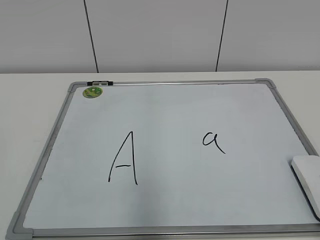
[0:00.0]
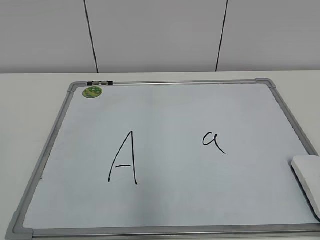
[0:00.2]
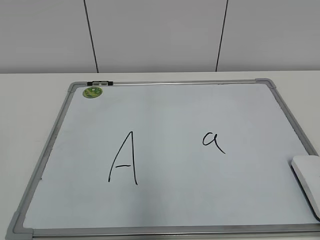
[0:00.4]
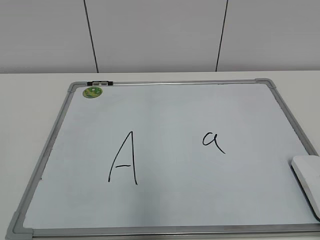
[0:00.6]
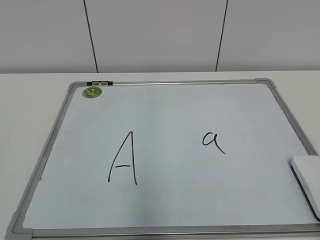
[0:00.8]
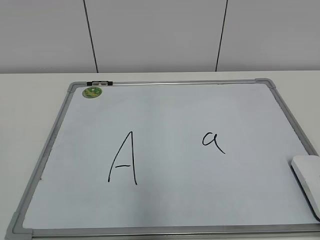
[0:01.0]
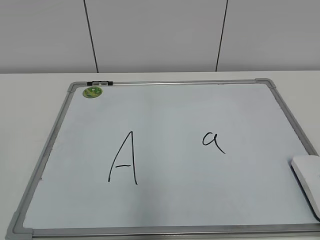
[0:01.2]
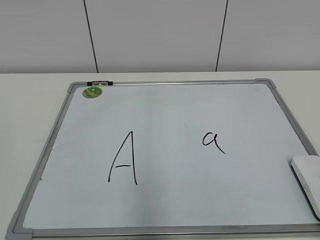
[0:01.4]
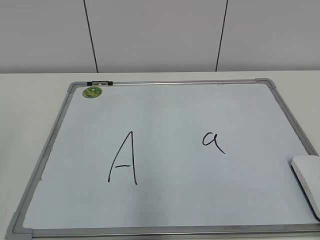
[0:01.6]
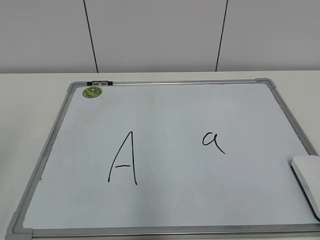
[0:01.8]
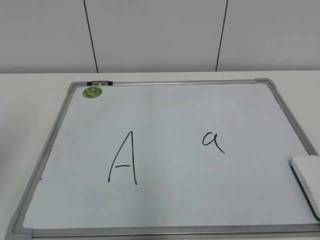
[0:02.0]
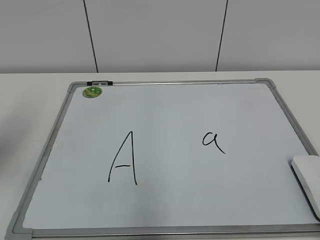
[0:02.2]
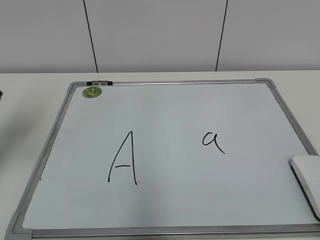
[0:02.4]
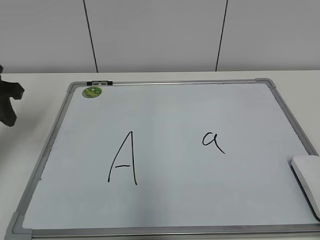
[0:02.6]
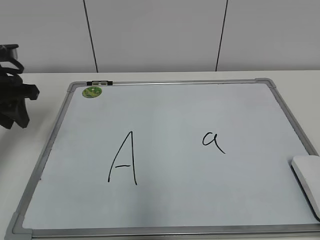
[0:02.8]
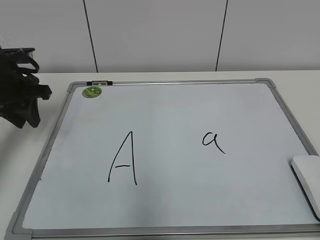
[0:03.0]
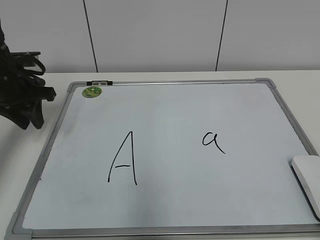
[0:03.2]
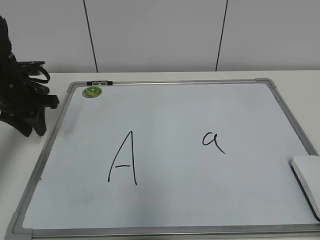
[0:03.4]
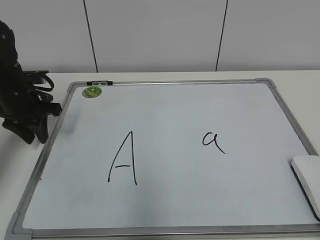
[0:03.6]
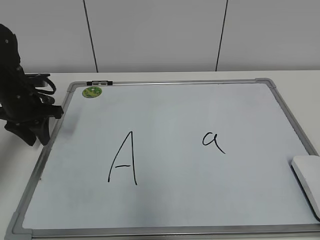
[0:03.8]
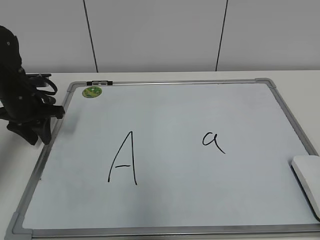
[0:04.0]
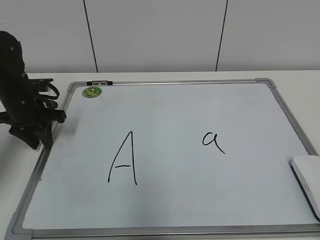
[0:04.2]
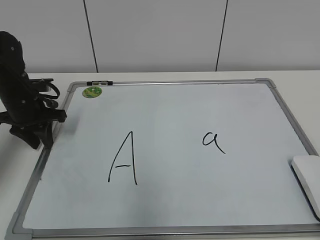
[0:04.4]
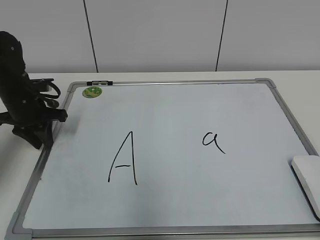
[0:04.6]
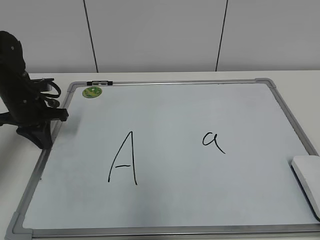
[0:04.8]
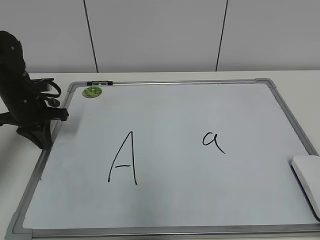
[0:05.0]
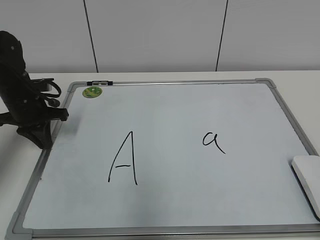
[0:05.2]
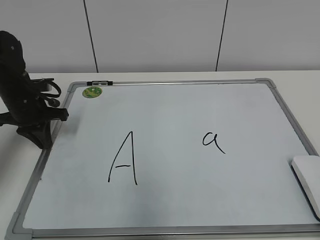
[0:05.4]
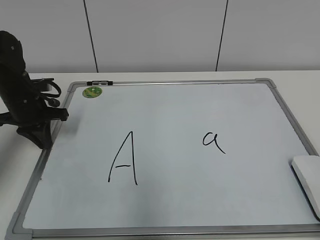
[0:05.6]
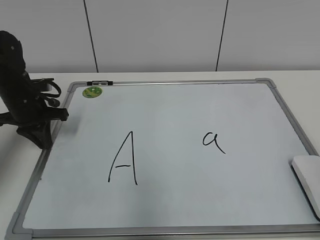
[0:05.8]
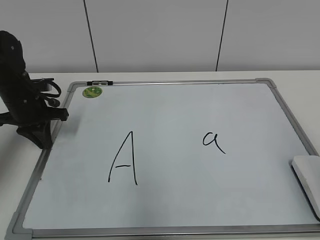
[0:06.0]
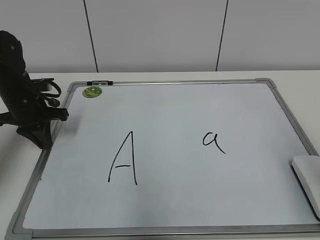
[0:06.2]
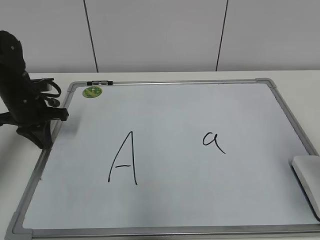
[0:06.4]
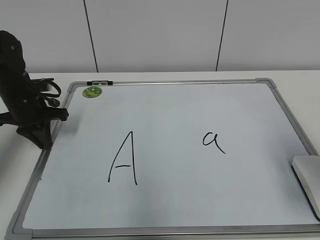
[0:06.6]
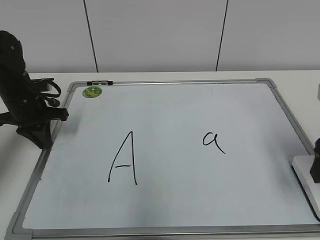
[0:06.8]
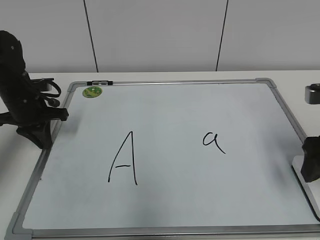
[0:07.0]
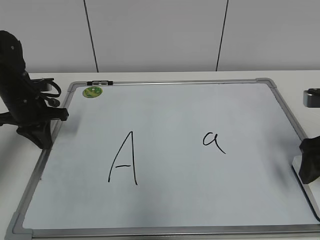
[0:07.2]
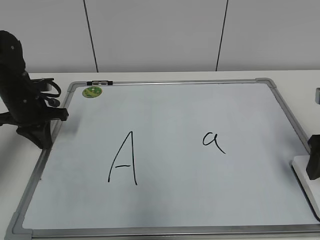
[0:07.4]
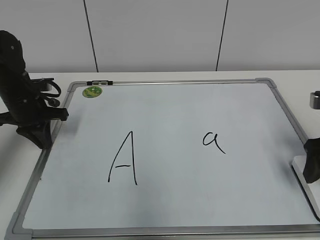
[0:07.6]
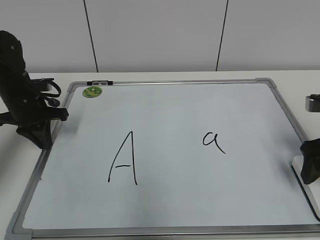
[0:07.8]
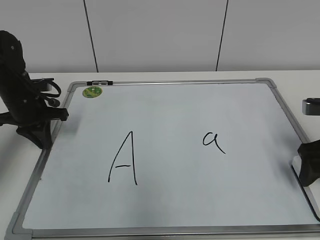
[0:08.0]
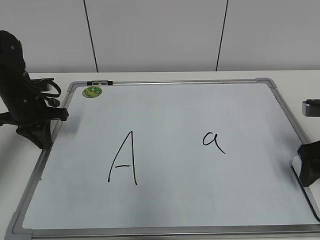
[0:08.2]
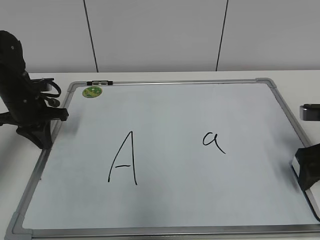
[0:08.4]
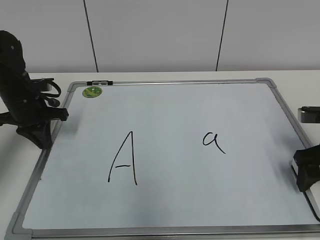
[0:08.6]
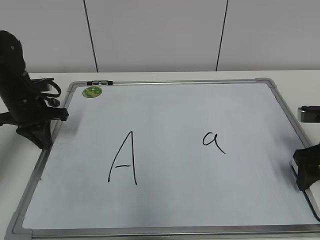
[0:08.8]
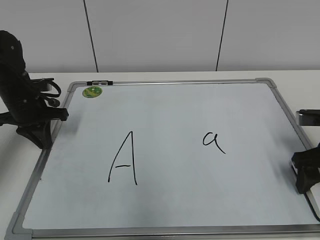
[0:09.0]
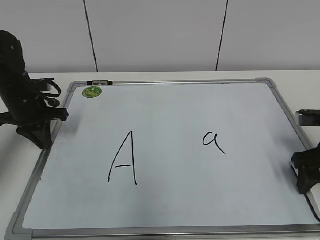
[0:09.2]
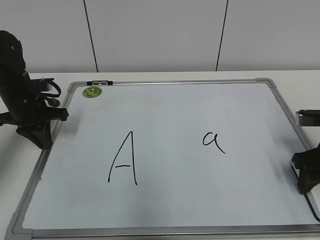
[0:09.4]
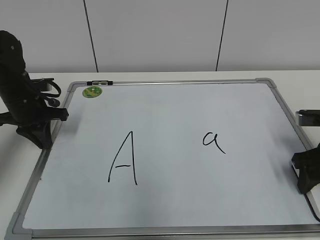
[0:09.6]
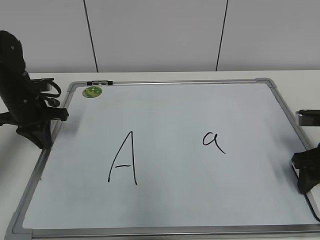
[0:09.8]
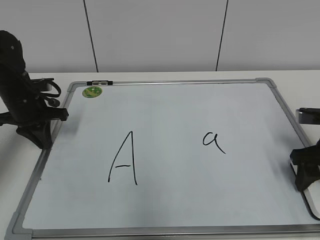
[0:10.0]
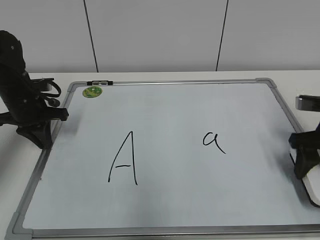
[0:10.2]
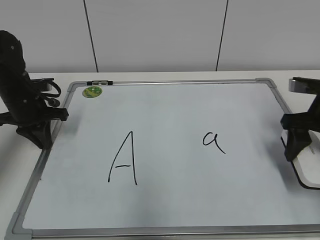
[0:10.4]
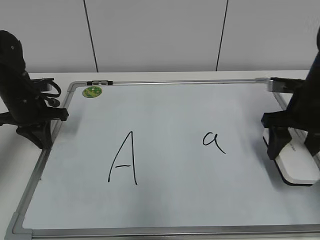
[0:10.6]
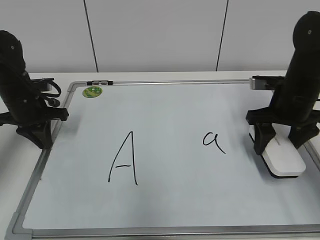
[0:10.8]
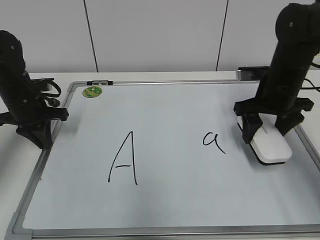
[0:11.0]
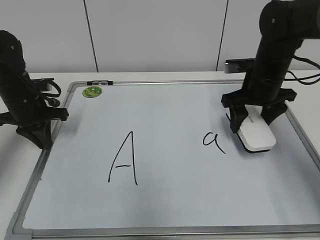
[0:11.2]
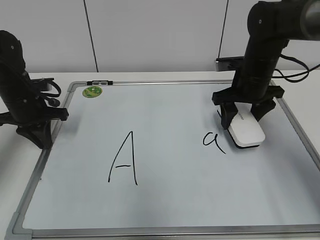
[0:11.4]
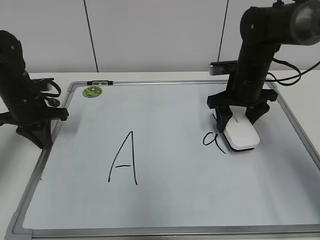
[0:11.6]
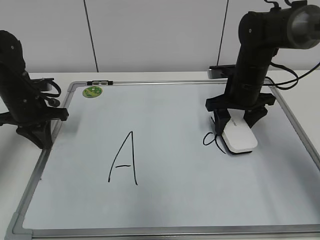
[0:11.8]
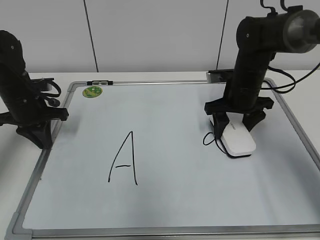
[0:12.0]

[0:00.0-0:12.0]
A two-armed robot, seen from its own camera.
Task of the whole recording: pick up the eraser on the blackboard and erase the letter "a".
Step, 0:00.0 to 0:06.0: Hold the drawing board steady with your left hand.
Step, 0:06.2 to 0:09.2: Grab the eraser with your right hand.
0:01.6 to 0:03.0: The left gripper travels forward by approximately 30 cm.
0:03.0 to 0:04.4: The left gripper shifts approximately 10 cm downward.
0:04.4 to 0:06.0: The left gripper closes.
0:06.0 to 0:07.6: The right gripper shifts about 20 cm forward and downward, and opens up.
0:07.6 to 0:09.0: The right gripper moves some 5 cm.
0:09.0 to 0:10.4: The right gripper shifts by roughly 5 cm, and closes.
0:10.4 to 0:12.0: The right gripper moves forward and to the left, some 15 cm.

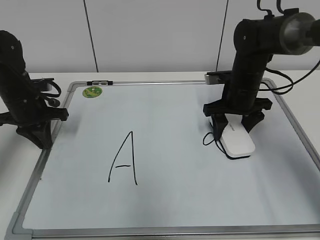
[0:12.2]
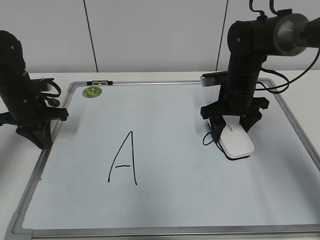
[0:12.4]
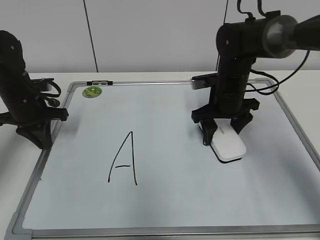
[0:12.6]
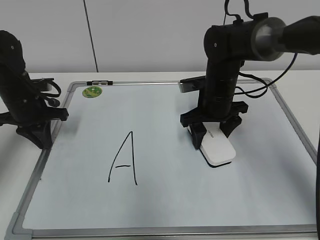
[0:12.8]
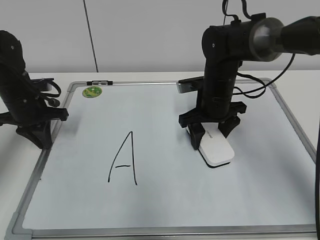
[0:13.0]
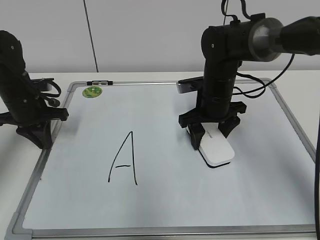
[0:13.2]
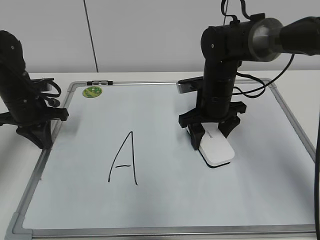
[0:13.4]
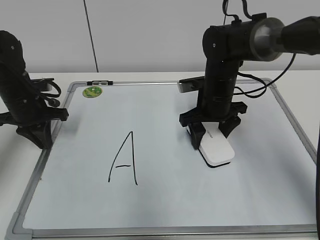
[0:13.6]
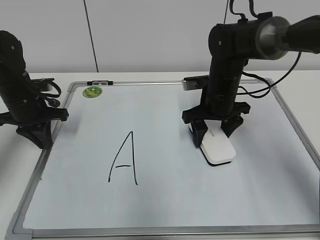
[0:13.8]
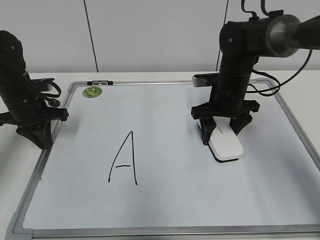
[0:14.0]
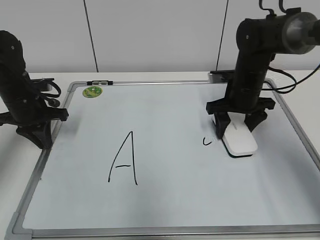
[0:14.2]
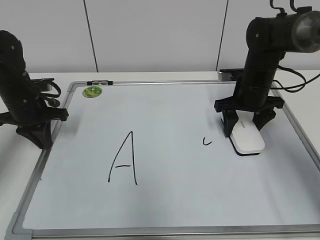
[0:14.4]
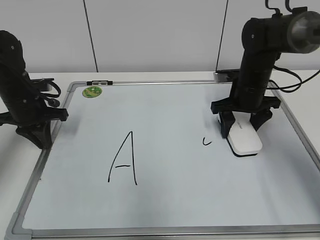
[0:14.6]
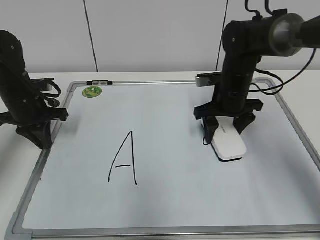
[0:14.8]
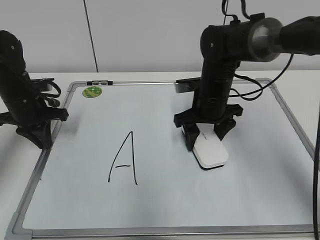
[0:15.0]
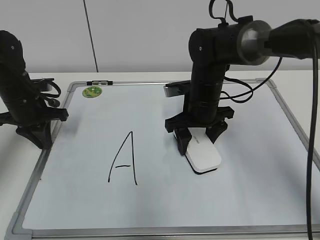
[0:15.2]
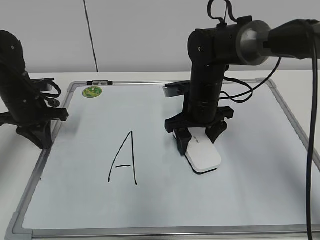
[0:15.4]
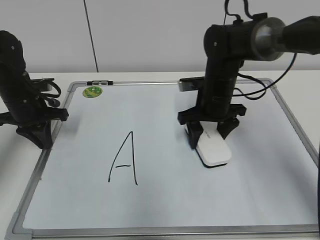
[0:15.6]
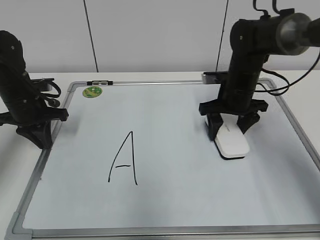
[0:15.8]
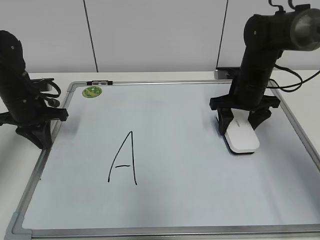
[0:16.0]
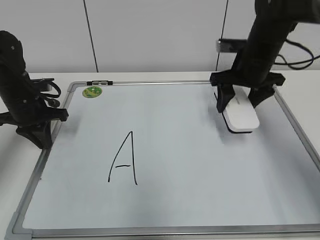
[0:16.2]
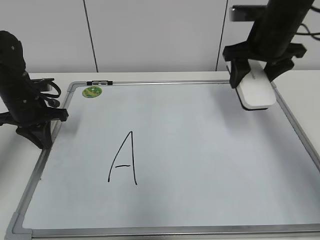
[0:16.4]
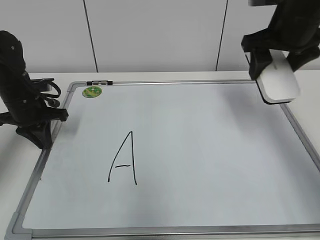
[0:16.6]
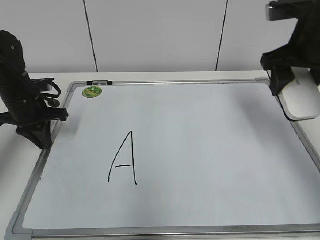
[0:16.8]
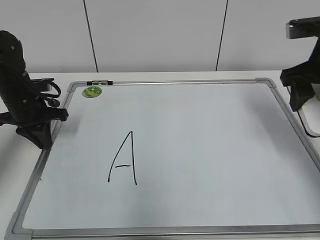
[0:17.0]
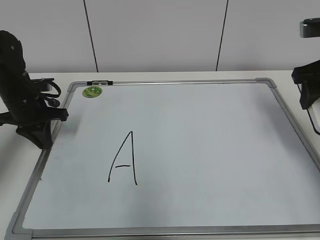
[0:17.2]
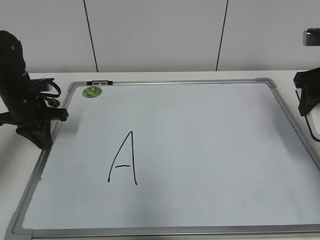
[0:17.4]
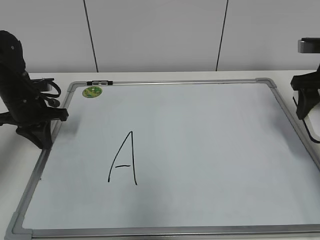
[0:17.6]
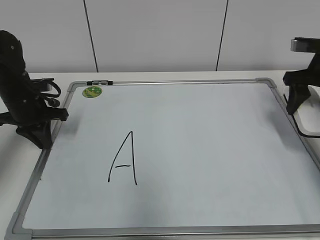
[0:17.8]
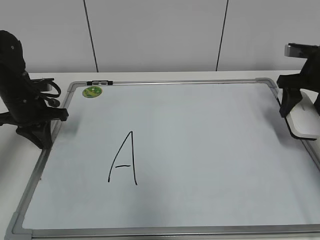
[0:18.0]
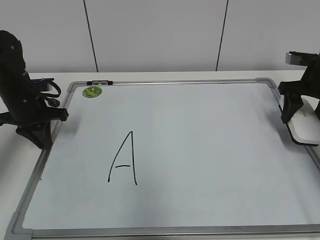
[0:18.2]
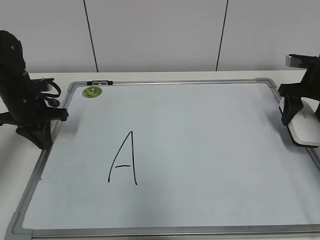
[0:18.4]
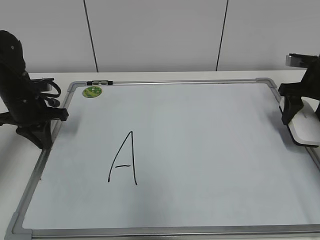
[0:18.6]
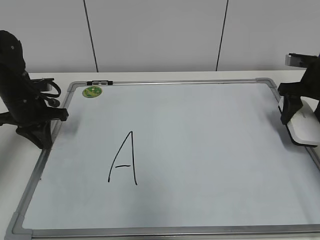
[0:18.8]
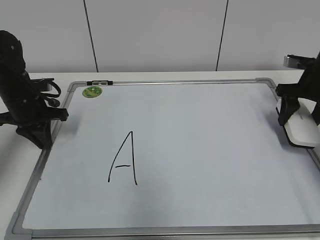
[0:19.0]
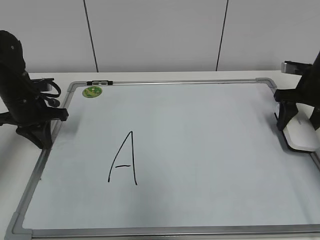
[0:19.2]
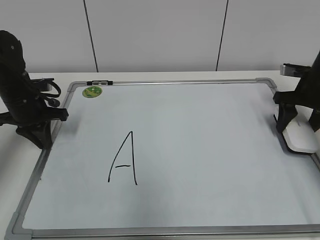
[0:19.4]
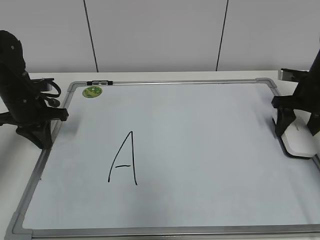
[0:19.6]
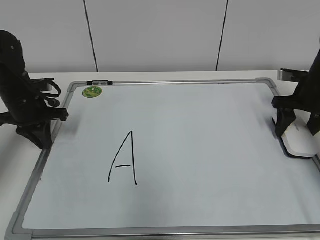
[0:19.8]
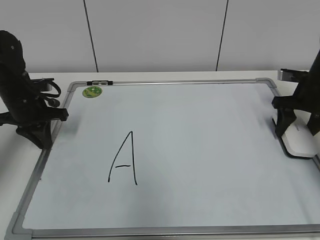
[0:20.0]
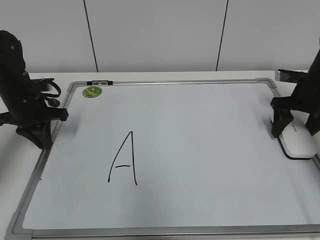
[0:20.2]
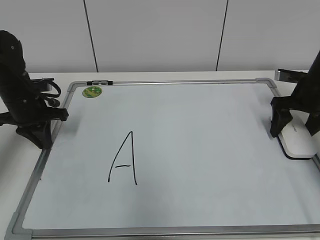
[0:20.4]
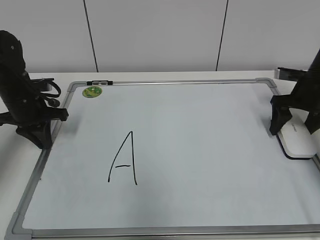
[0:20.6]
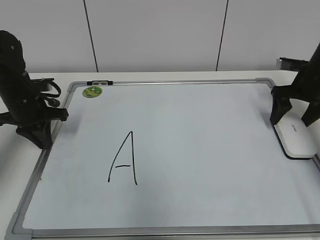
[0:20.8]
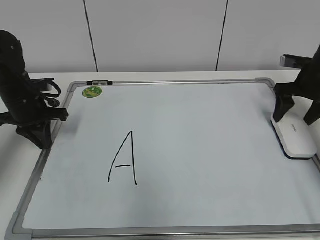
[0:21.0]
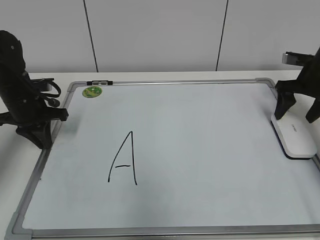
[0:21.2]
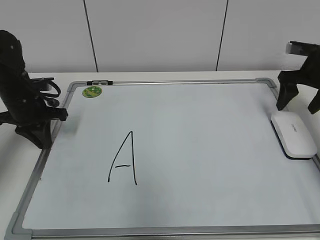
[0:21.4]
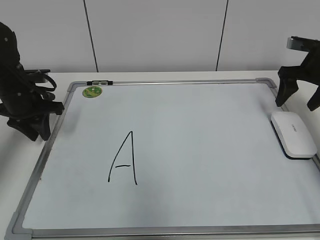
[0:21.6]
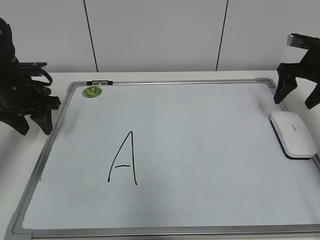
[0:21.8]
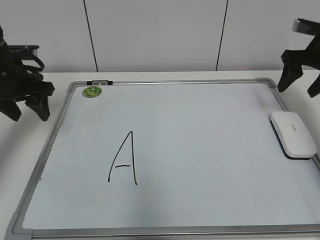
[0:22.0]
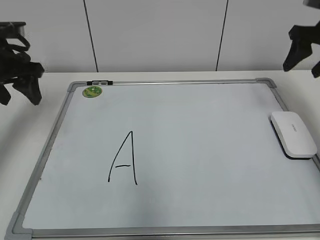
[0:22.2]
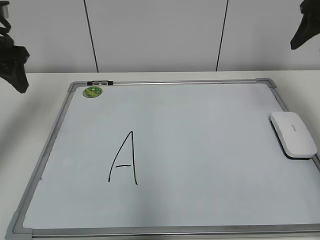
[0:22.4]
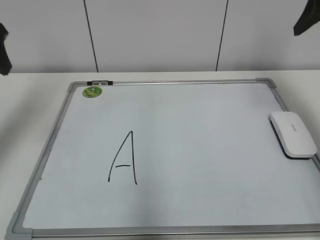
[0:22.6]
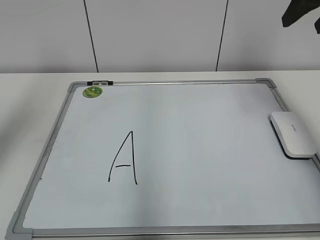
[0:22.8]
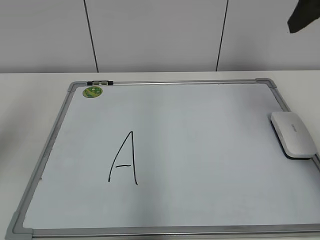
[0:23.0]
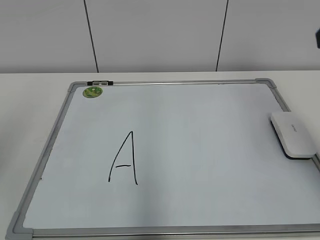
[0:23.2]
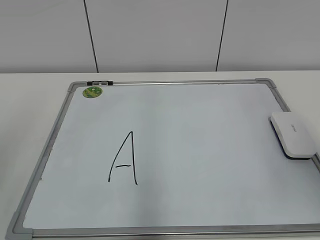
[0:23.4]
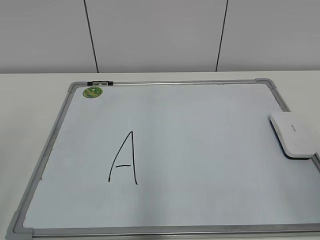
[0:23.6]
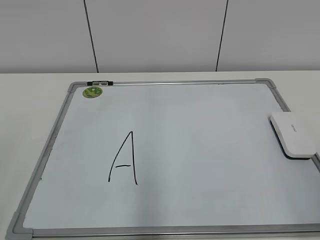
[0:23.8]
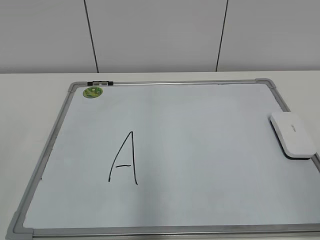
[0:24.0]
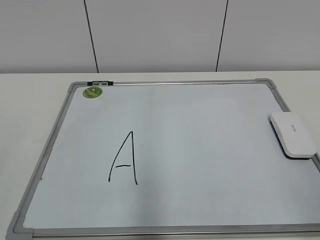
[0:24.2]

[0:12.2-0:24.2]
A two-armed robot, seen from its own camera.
Task of the whole recording: pick up the eraser on the blackboard and erase the letter "a".
Step, 0:12.2 to 0:15.8: Erase the letter a with your right hand.
Step, 0:16.0 to 0:20.4: Put down the eraser with your right hand.
0:12.2 to 0:13.8: The grippers move only a little.
0:15.2 to 0:16.6: The right gripper is displaced upward and to the right by about 20 cm.
0:16.6 to 0:18.2: The right gripper heads to the right and downward, covering about 15 cm.
0:18.2 to 0:19.8: The grippers stay close to where they were, moving slightly.
0:19.8 to 0:21.2: The right gripper opens.
0:21.2 to 0:22.6: Both grippers move upward, roughly 20 cm. The left gripper opens its fingers; the right gripper closes up.
0:22.6 to 0:24.2: Both grippers move backward, some 30 cm.
